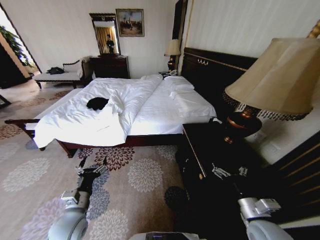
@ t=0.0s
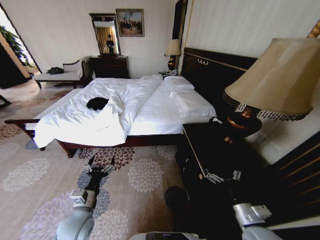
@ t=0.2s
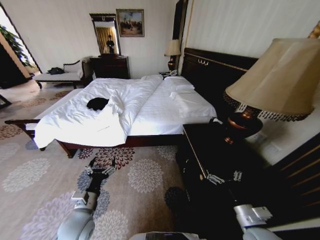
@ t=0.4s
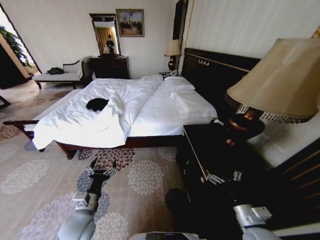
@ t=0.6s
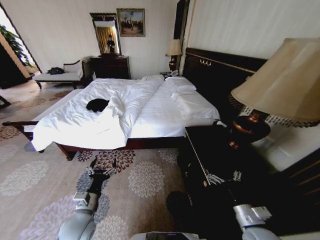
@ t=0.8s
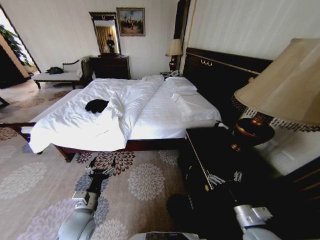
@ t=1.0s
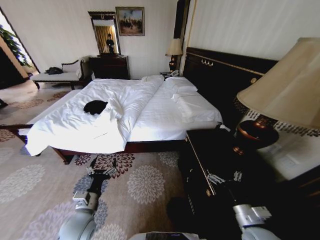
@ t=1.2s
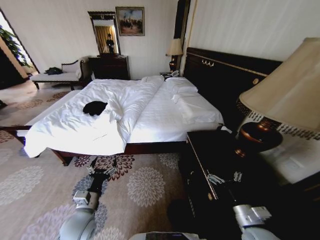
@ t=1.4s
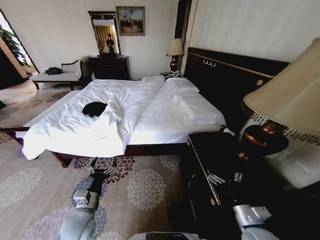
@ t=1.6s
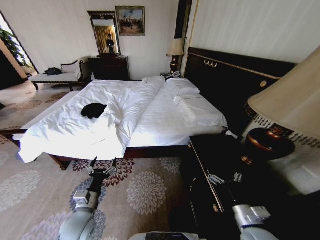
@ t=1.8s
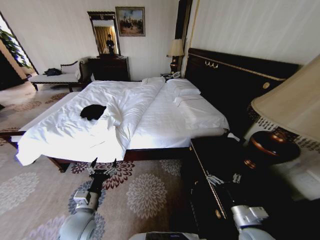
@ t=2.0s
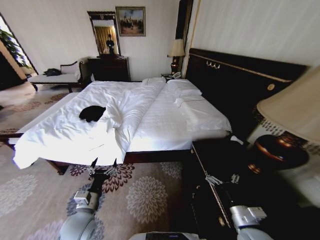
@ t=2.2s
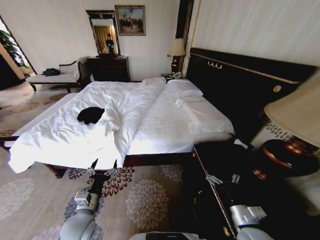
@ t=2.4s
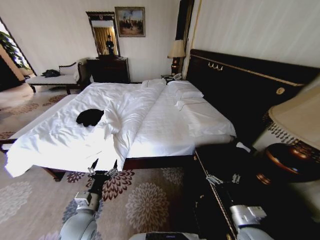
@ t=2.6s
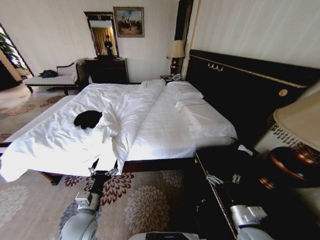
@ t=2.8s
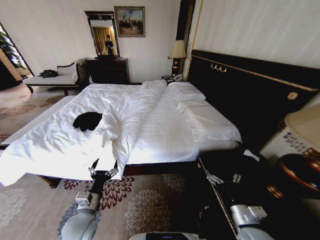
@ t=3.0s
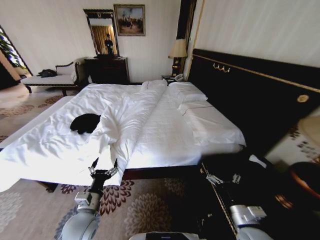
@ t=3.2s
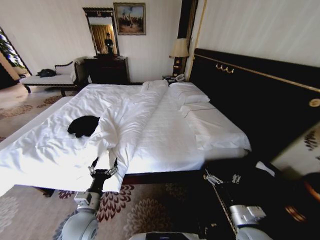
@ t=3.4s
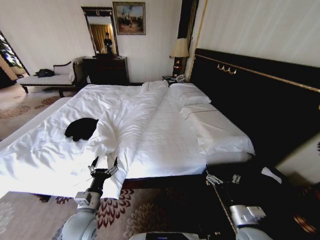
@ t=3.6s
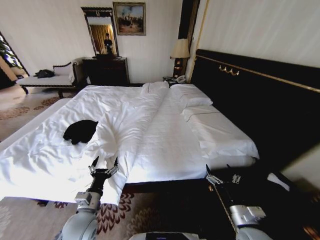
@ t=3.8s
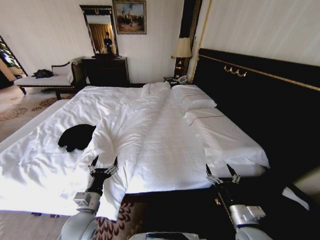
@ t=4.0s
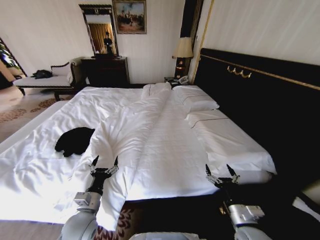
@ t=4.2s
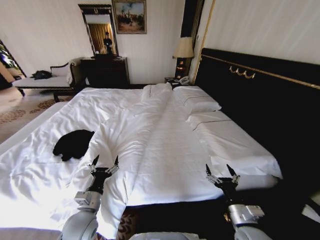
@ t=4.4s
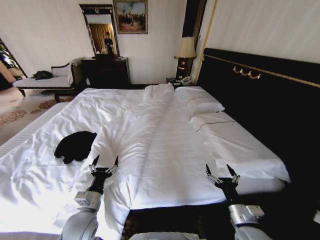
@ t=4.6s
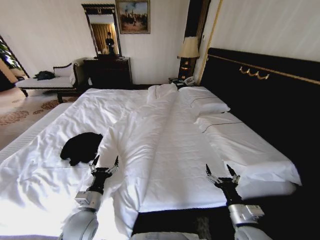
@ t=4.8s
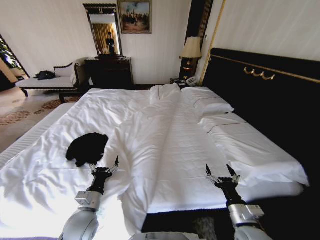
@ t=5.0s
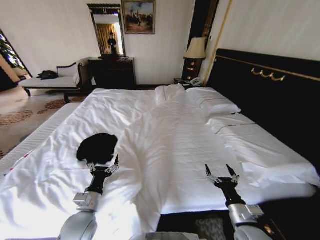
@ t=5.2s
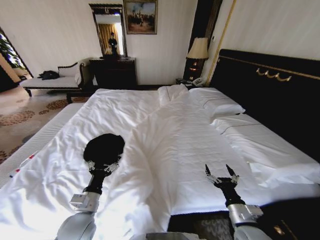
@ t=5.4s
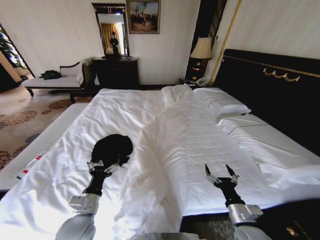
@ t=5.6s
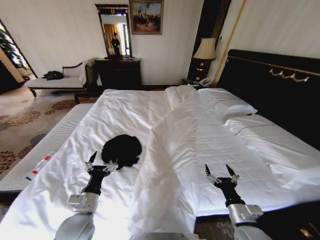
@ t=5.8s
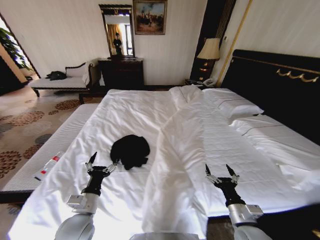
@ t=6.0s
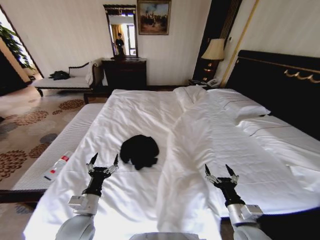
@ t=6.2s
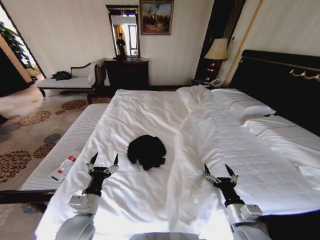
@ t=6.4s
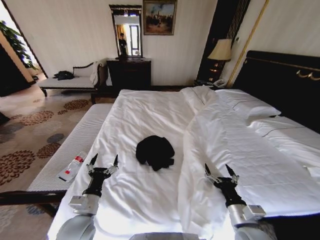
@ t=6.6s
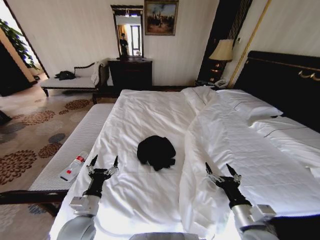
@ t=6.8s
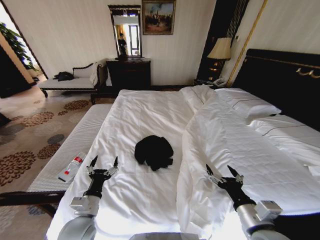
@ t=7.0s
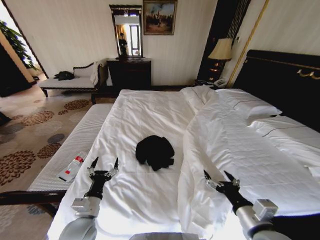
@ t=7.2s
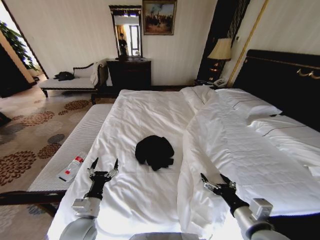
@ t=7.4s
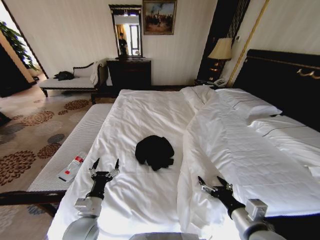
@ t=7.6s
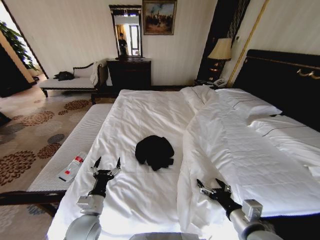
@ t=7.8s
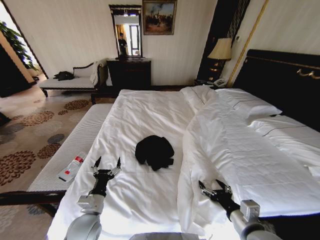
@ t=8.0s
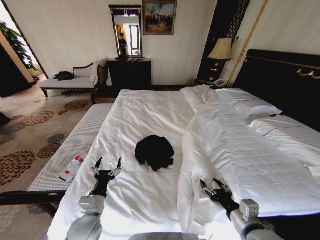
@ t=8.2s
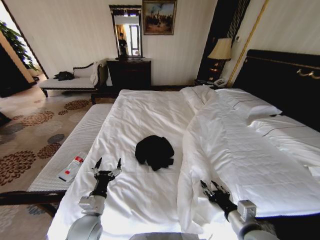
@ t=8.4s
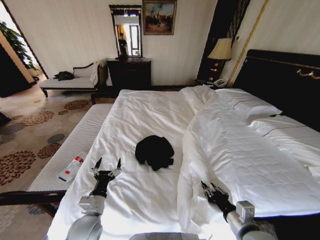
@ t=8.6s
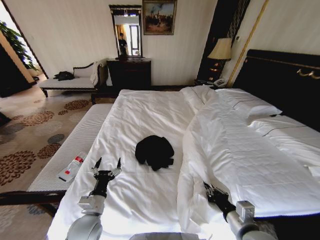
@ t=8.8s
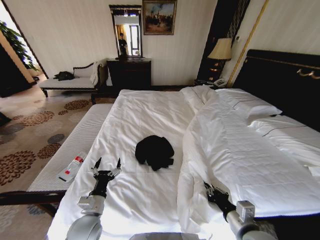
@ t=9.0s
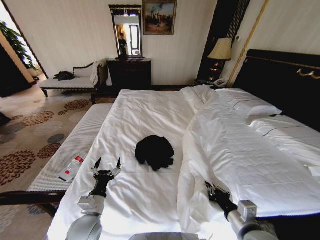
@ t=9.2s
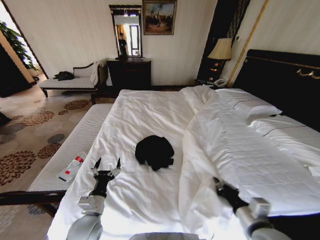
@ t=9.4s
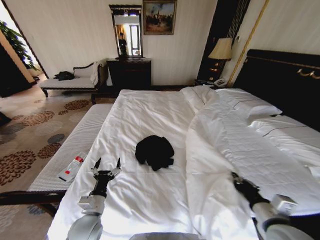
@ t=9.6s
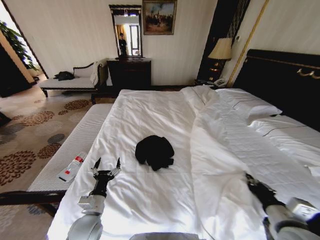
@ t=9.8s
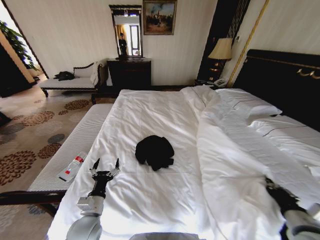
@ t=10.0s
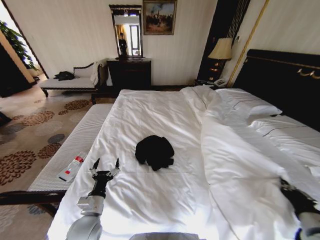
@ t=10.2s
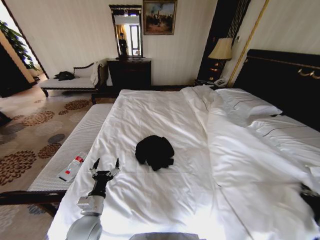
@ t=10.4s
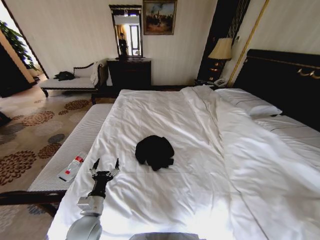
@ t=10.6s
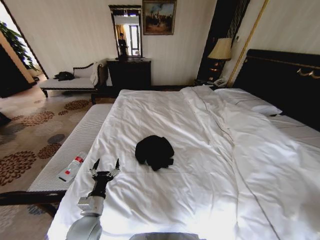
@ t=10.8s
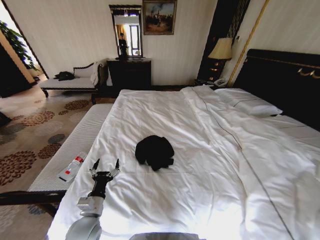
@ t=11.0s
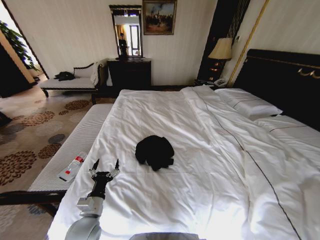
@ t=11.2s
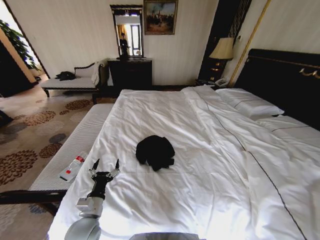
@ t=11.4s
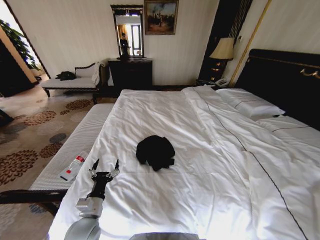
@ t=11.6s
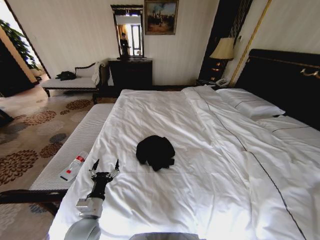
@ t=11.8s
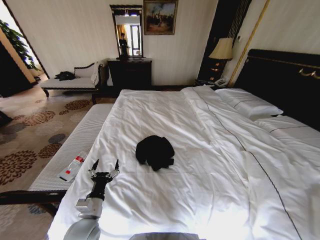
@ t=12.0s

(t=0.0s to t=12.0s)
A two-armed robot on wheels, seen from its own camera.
Task of the whole recording: Fold the clothes on the bed.
t=6.0s - t=7.6s: The right gripper shifts approximately 10 cm upward.
t=7.6s - t=9.0s: The right gripper closes up.
t=9.0s - t=10.4s: The right gripper heads to the right, covering about 20 cm.
t=10.4s - t=12.0s: The right gripper is displaced to the right, downward and backward by about 20 cm.

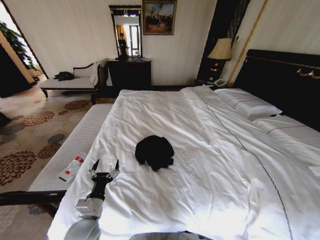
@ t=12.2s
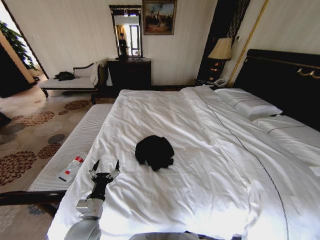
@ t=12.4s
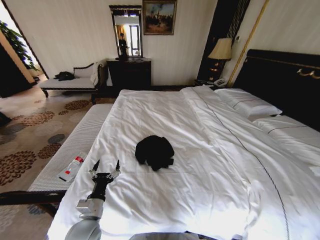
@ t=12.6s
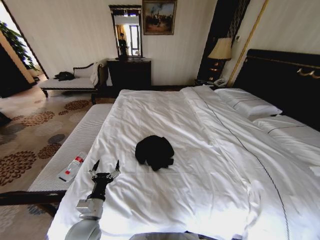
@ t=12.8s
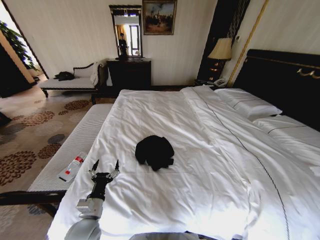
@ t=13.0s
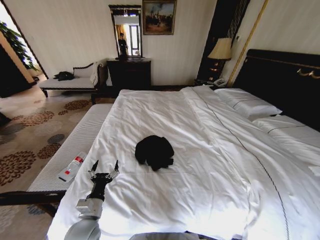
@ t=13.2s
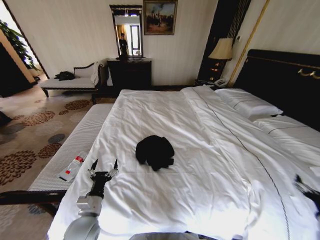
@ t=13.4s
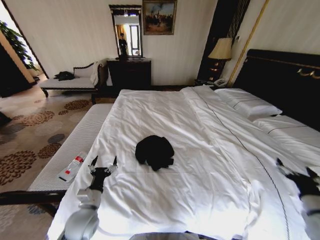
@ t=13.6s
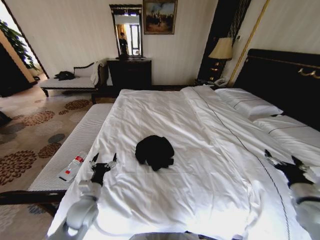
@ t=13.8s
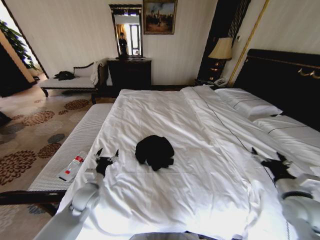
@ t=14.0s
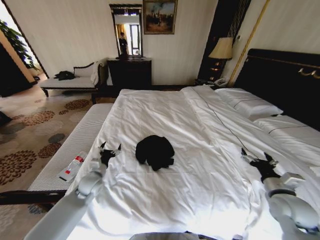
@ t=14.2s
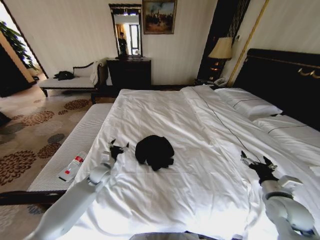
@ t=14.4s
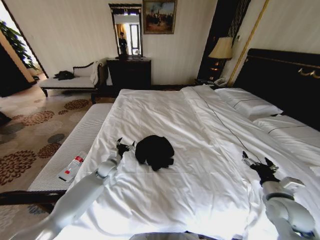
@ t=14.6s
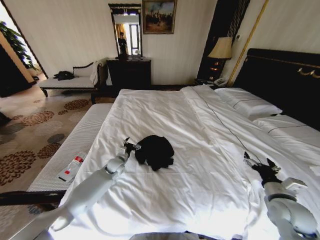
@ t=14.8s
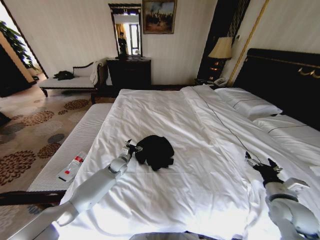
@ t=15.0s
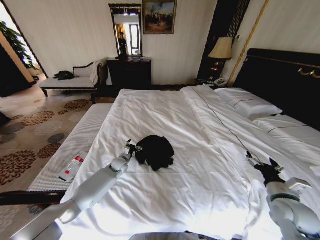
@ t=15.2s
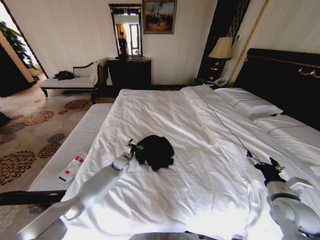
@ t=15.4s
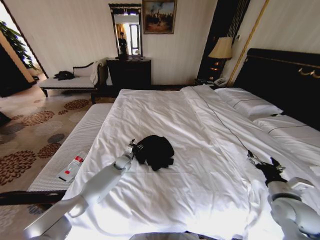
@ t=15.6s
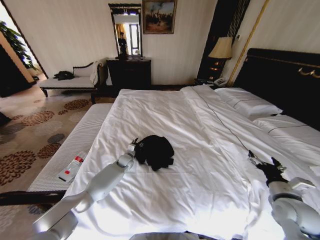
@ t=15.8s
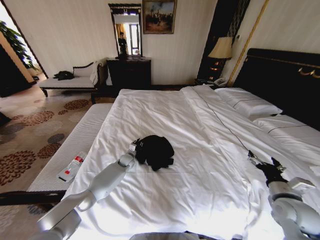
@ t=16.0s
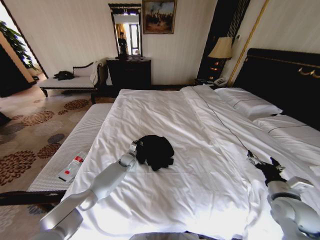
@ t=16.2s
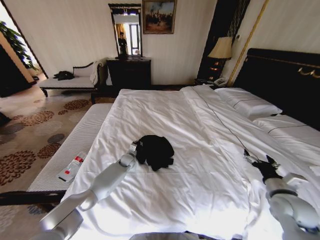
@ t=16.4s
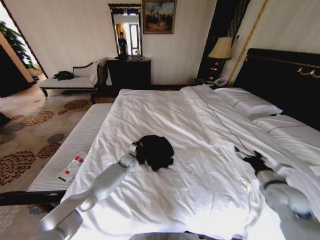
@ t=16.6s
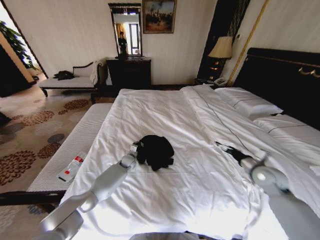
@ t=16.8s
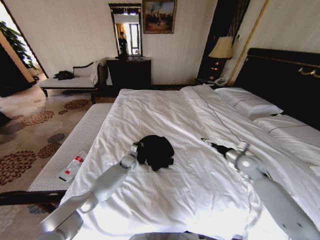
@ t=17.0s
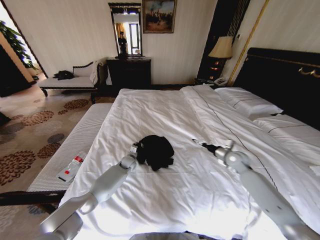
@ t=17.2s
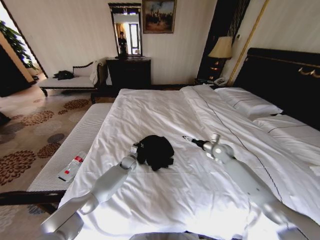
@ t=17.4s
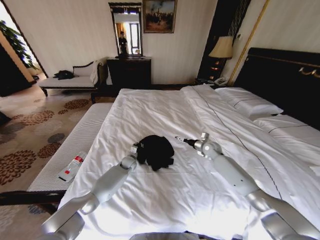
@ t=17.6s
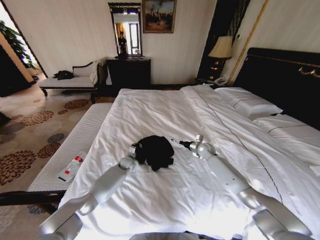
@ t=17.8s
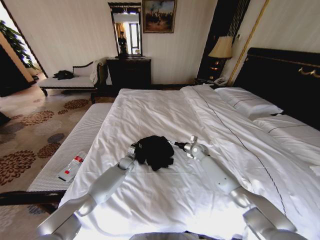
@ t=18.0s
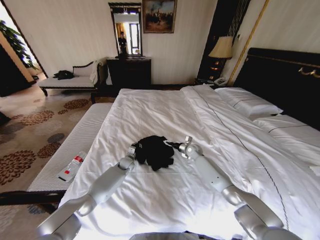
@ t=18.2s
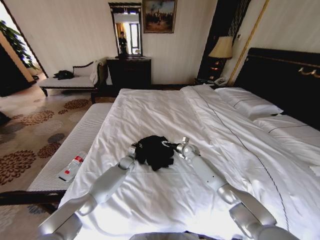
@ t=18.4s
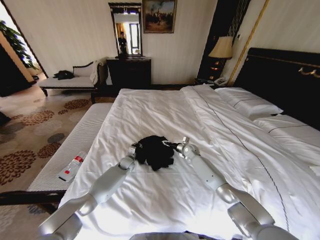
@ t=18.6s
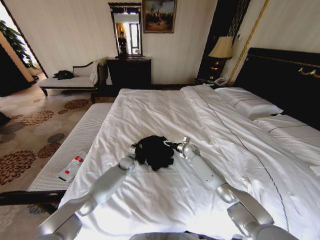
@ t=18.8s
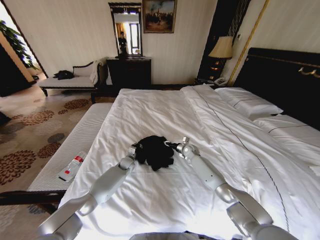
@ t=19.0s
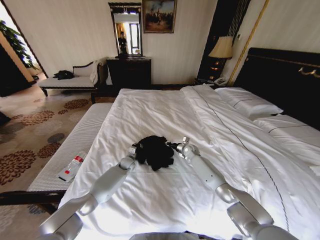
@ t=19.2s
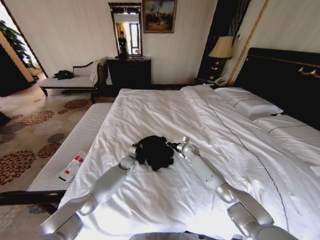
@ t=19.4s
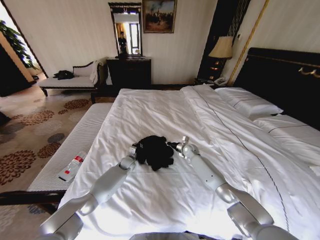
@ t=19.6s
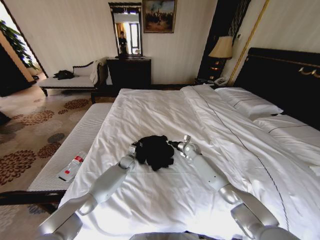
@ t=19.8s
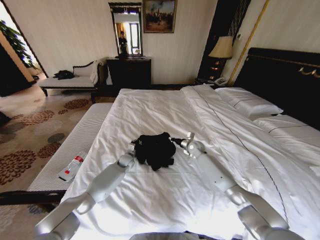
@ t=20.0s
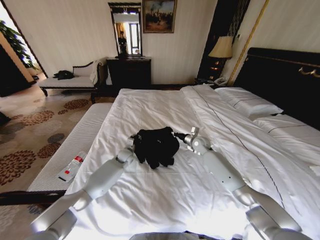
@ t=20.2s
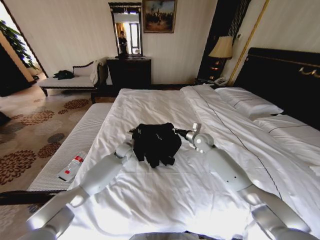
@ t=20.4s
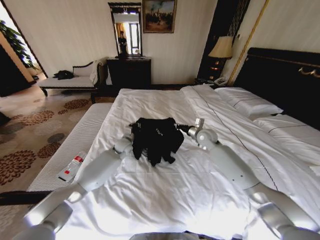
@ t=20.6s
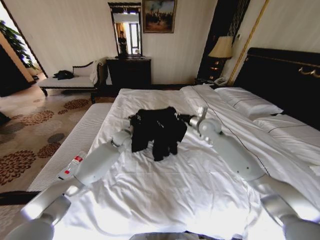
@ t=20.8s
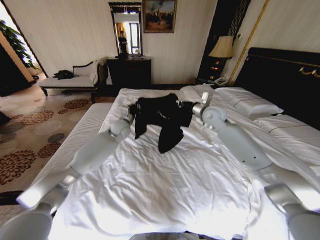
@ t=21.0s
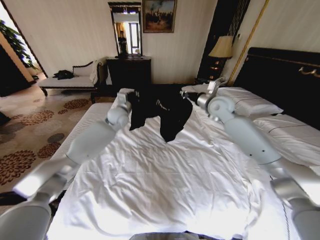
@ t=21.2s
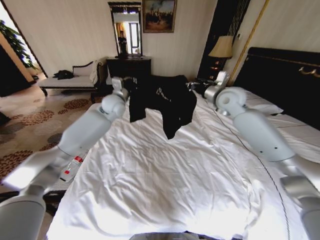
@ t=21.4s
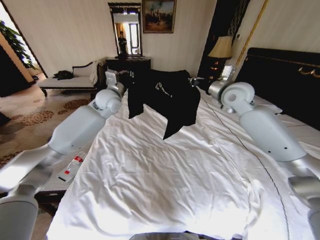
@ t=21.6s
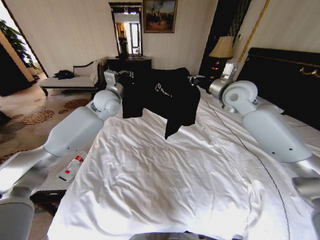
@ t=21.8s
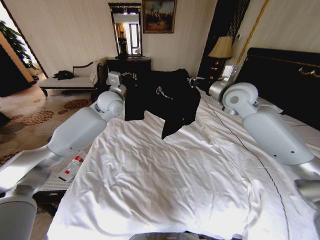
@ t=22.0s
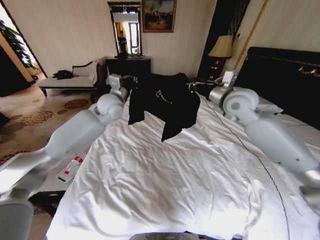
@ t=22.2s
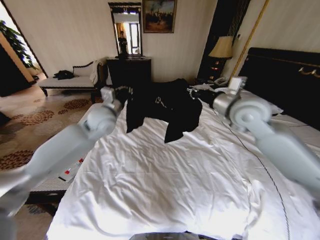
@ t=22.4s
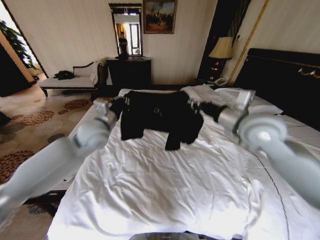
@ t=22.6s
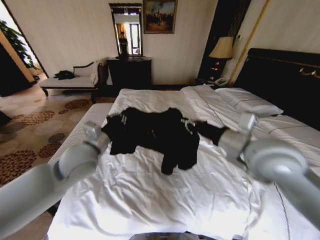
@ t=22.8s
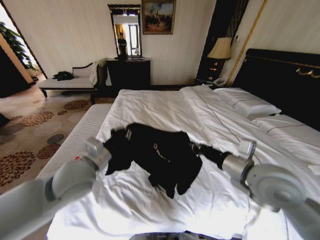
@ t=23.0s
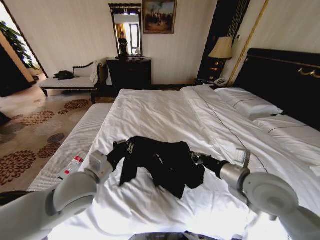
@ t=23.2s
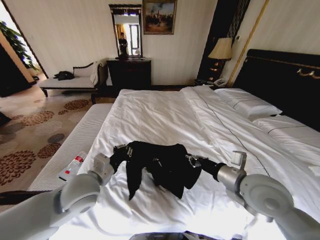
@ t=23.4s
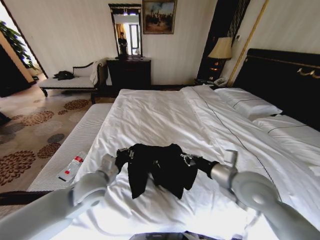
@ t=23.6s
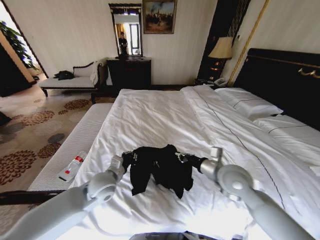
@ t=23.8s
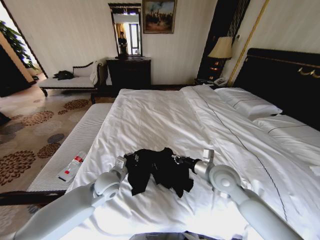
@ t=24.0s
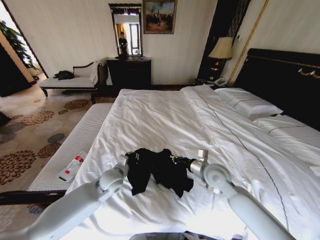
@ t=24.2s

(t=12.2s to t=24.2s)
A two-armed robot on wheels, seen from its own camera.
Task of the whole recording: Fold the clothes on the bed.
t=12.2s - t=13.8s: The left gripper is displaced forward by approximately 10 cm. Meanwhile the right gripper moves forward, to the left and upward, about 30 cm, and opens.
t=13.8s - t=15.2s: The right gripper ends up roughly 5 cm from where it was. The left gripper shifts roughly 20 cm forward.
t=15.2s - t=16.6s: The right gripper travels forward by roughly 5 cm; the left gripper shifts by some 5 cm, and closes up.
t=16.6s - t=18.2s: The right gripper heads forward and to the left, covering approximately 35 cm.
t=18.2s - t=19.8s: The right gripper closes its fingers.
t=19.8s - t=21.2s: Both grippers move upward, about 30 cm.
t=21.2s - t=22.6s: The grippers both shift backward by roughly 20 cm.
t=22.6s - t=24.2s: The two grippers go some 20 cm downward.
